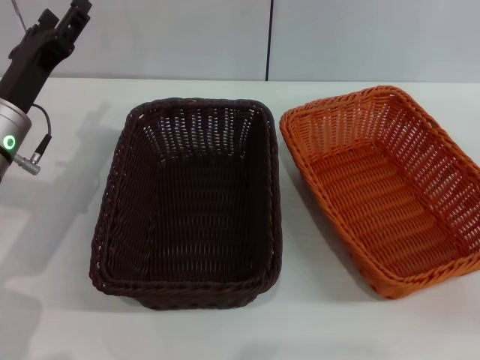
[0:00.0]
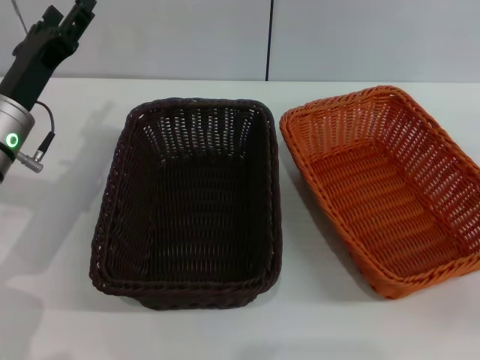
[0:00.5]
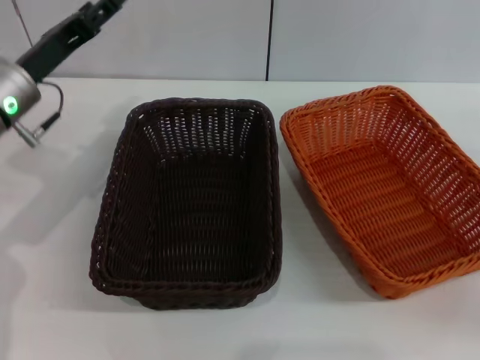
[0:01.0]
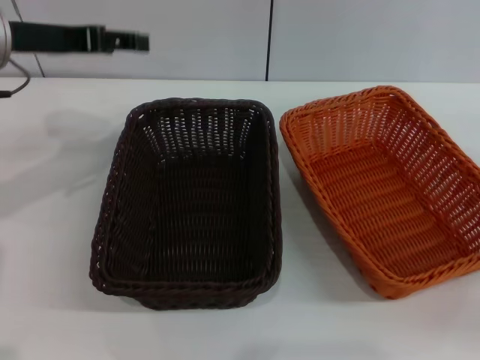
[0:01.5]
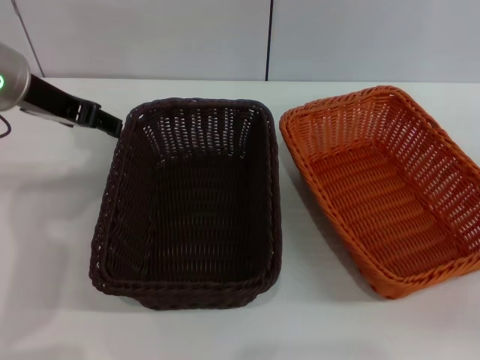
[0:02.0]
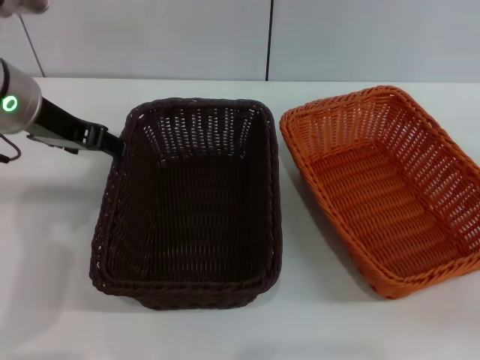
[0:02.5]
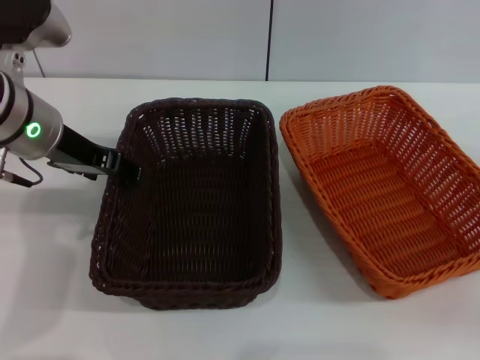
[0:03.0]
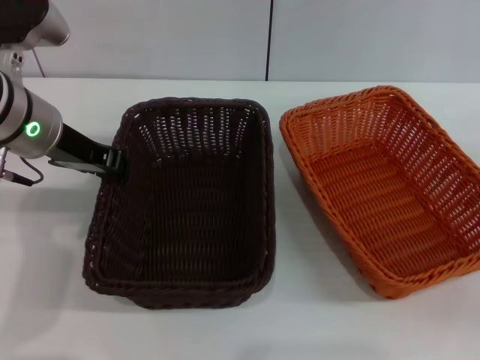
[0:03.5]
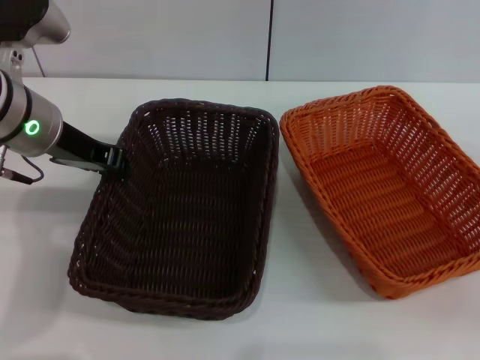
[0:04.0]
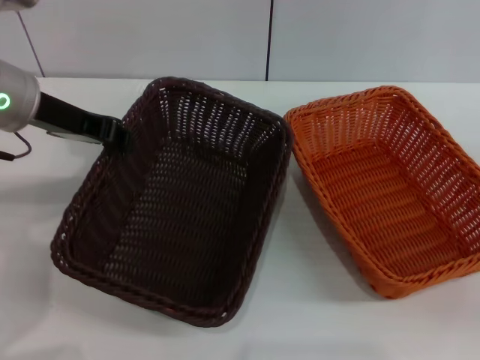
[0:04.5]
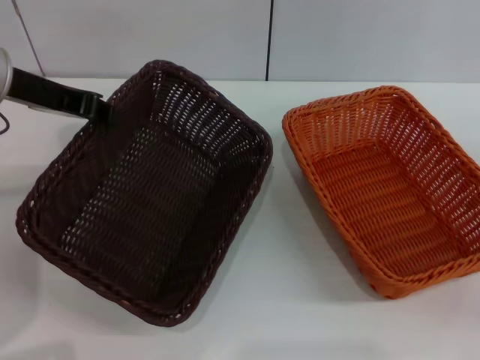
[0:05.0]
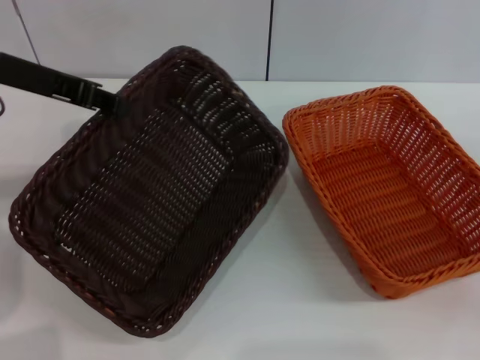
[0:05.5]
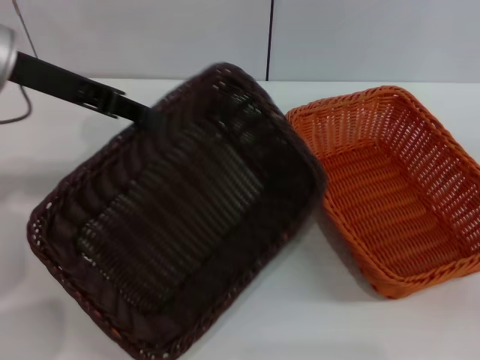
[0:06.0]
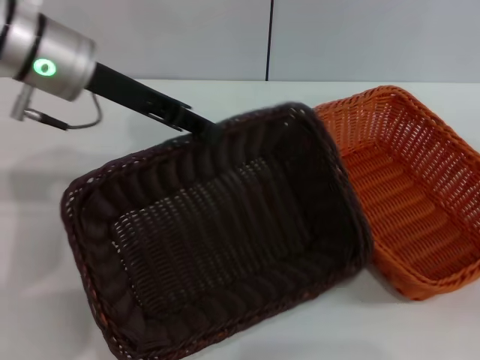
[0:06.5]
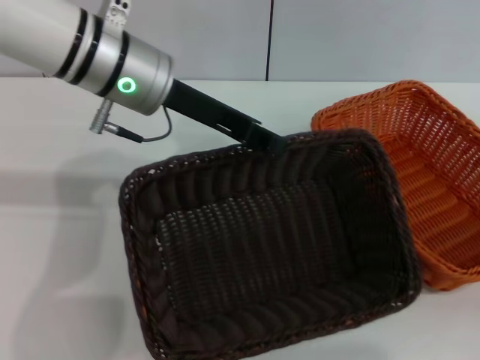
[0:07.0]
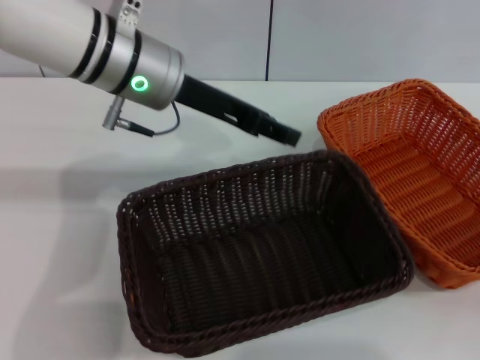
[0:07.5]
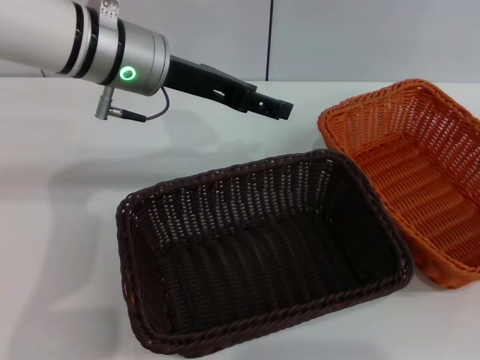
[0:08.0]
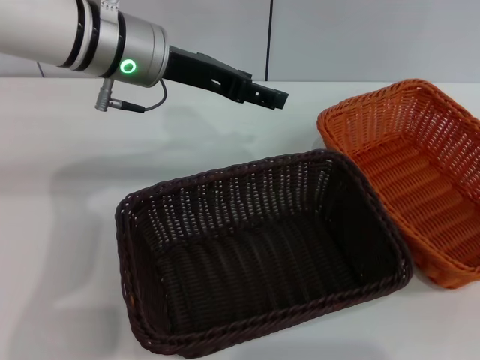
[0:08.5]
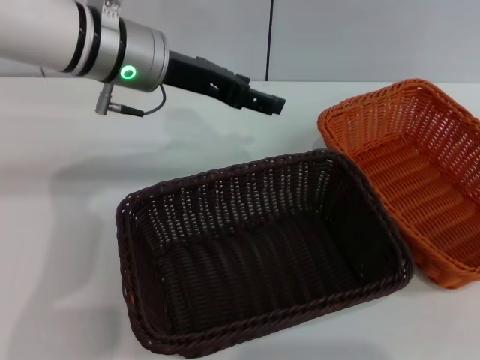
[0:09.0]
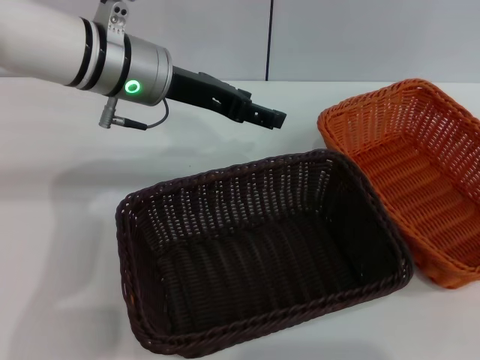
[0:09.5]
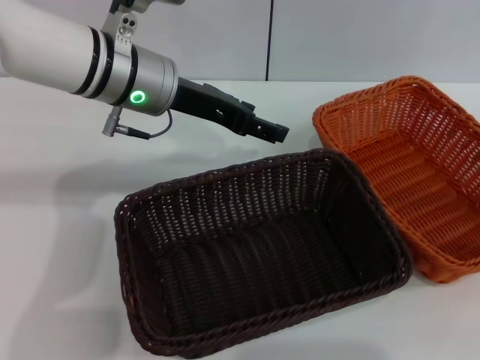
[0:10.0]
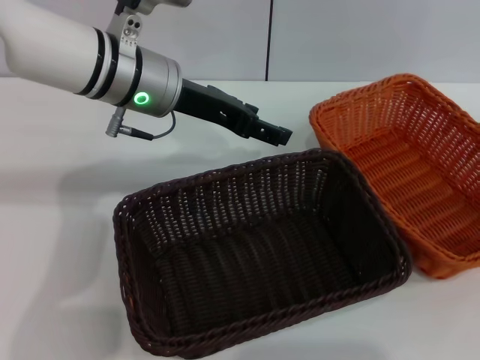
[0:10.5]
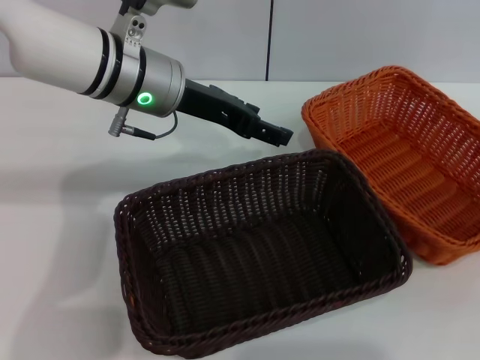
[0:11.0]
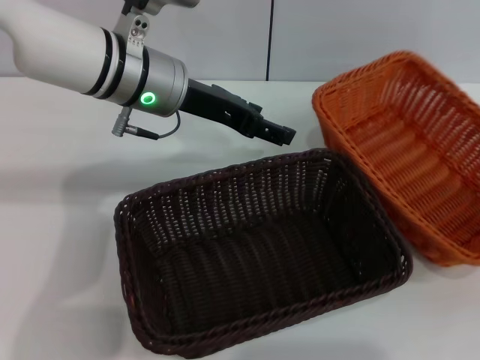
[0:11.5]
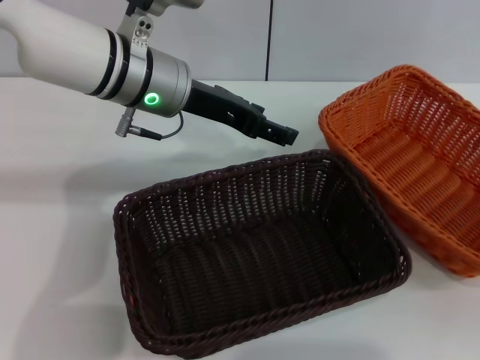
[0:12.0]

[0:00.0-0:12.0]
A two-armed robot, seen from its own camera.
Step, 0:00.0 to 0:04.0: Pick up the dark basket with the left gripper.
Step, 0:04.5 to 0:07.0: Place the dark basket in the center of view with the left gripper.
0:00.0 to 0:02.0: The left gripper goes approximately 15 cm upward.
0:02.0 to 0:04.0: The left gripper closes up.
0:04.0 to 0:06.0: The left gripper shifts about 5 cm upward.
0:06.0 to 0:08.0: The left gripper travels to the right by roughly 10 cm, and opens, while the right gripper shifts by about 5 cm.
0:08.0 to 0:10.0: The right gripper goes approximately 5 cm upward.
0:10.0 to 0:12.0: The right gripper moves approximately 5 cm, and closes up.

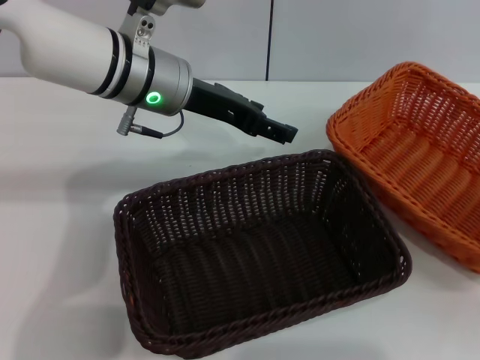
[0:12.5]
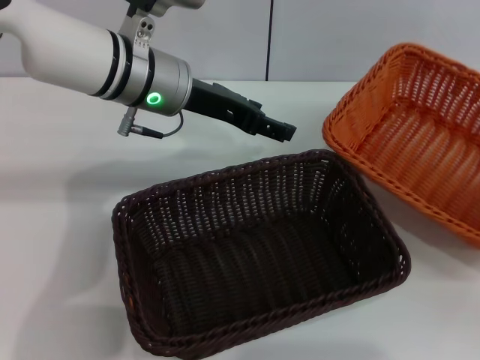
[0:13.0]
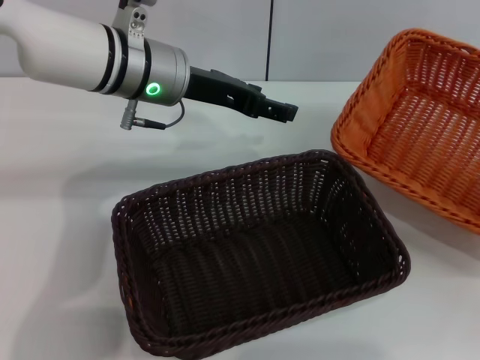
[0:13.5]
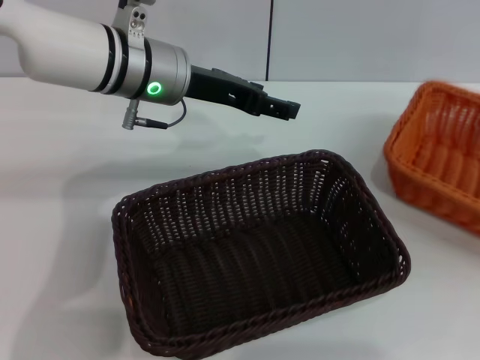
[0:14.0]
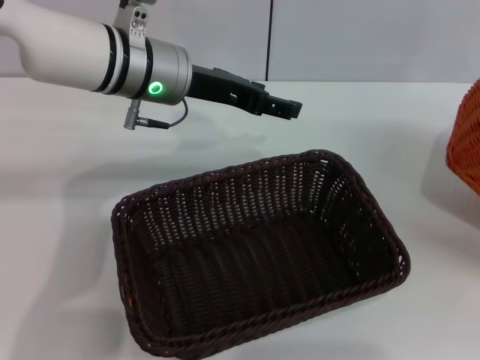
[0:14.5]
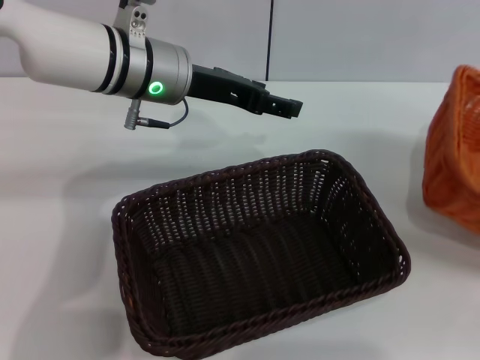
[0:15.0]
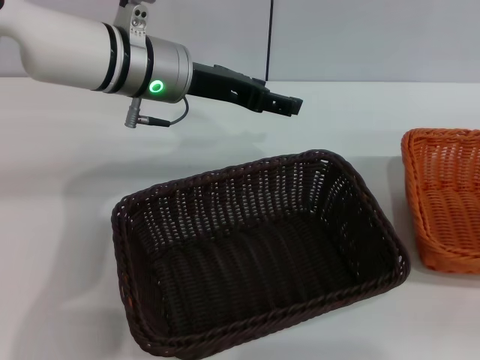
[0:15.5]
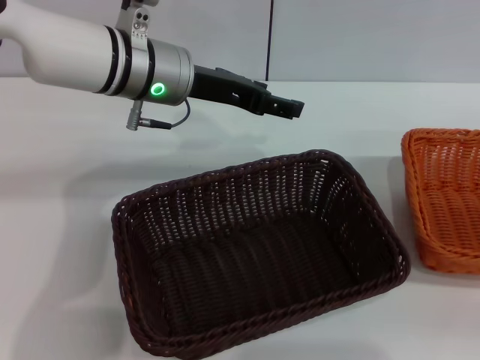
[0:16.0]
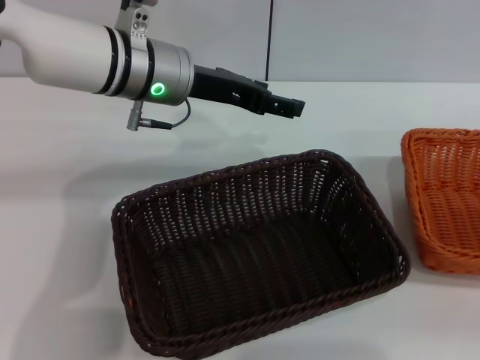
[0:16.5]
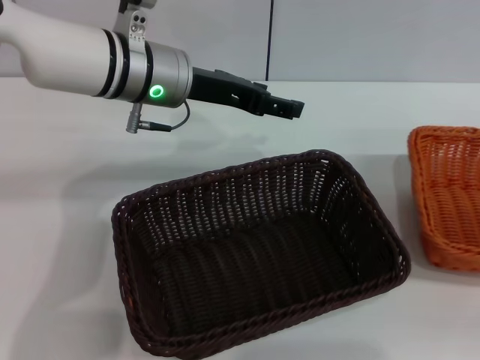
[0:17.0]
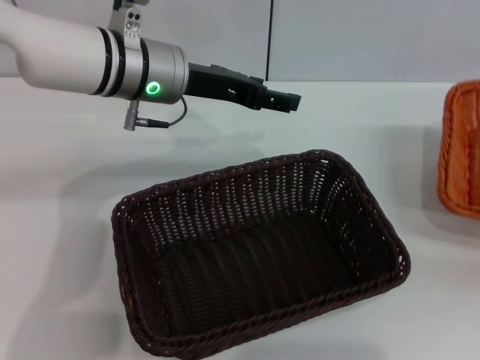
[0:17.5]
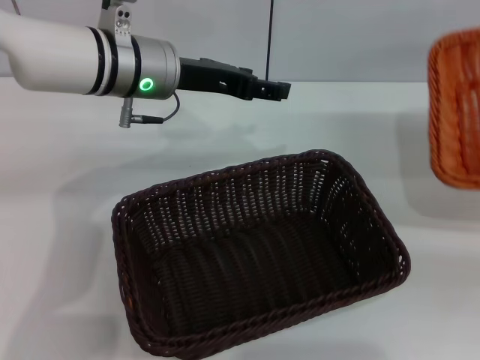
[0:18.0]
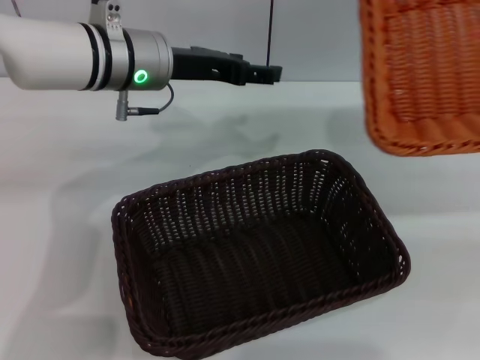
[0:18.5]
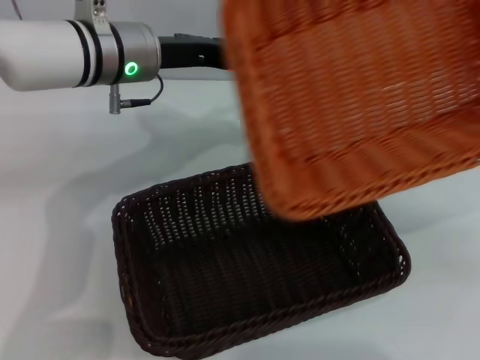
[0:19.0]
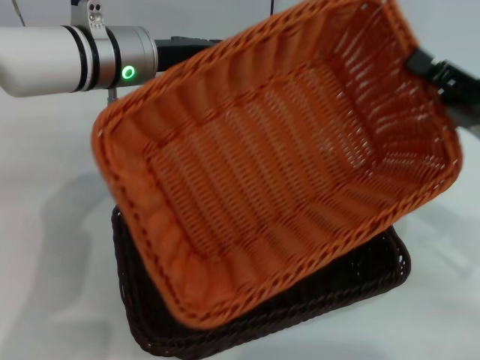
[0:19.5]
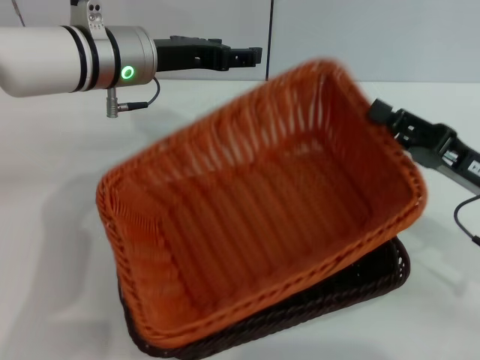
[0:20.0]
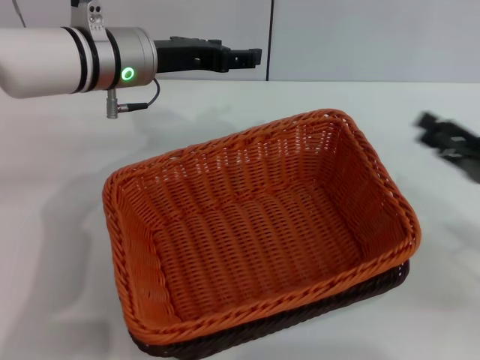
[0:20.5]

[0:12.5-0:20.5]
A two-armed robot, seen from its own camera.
Step, 0:12.5 to 0:17.0: Pick up the light basket with the right gripper.
Step, 0:17.5 to 0:20.0: Place the light basket on the dark basket with the right gripper.
0:12.5 to 0:14.5: The right gripper moves to the right, some 5 cm, and closes its fingers.
0:14.5 to 0:16.5: The right gripper opens up.
0:16.5 to 0:18.5: The right gripper travels to the left by roughly 5 cm, and closes its fingers.
0:18.5 to 0:20.5: The right gripper shifts approximately 15 cm to the left and downward, and opens up.
